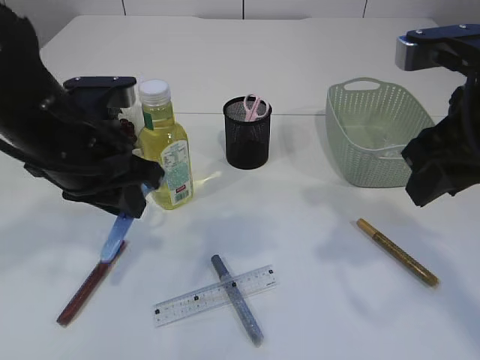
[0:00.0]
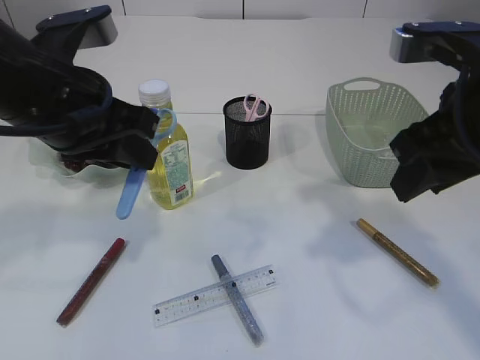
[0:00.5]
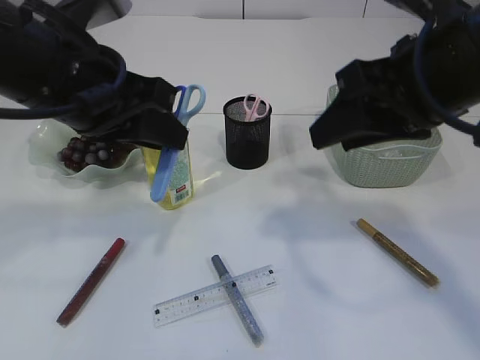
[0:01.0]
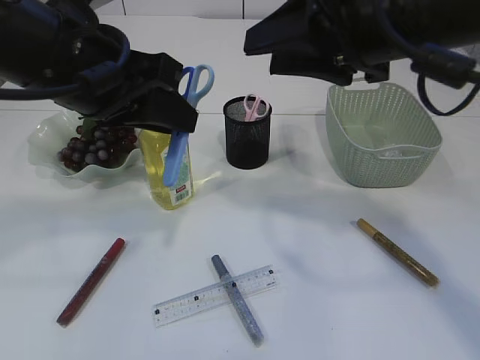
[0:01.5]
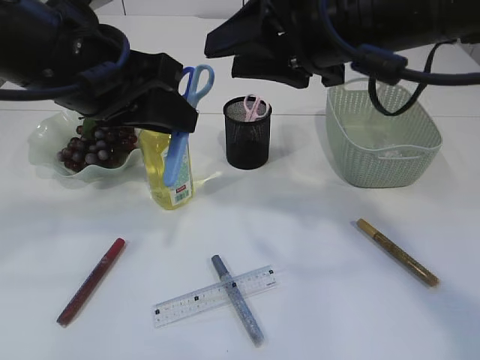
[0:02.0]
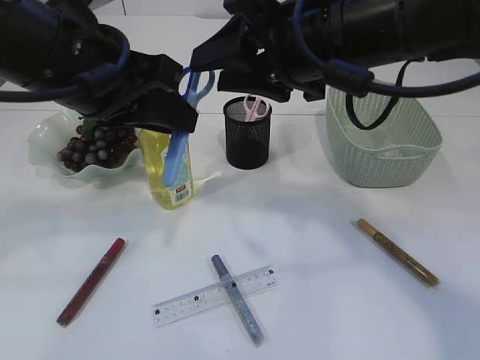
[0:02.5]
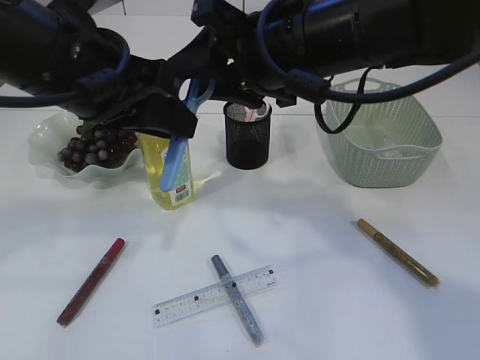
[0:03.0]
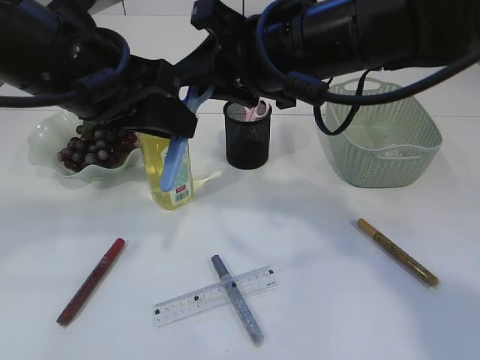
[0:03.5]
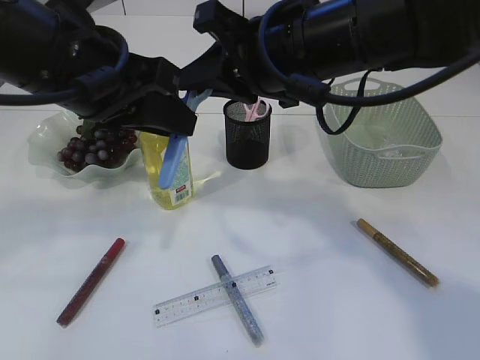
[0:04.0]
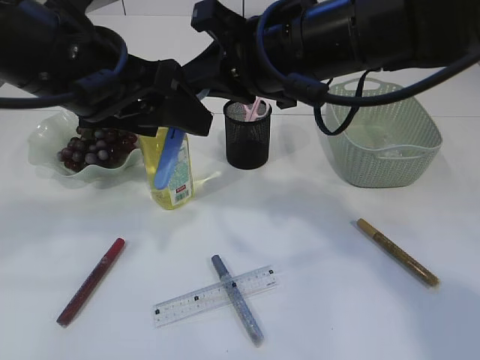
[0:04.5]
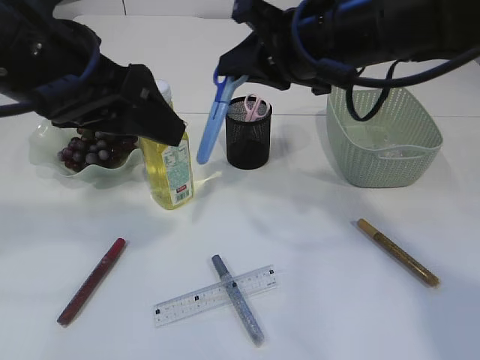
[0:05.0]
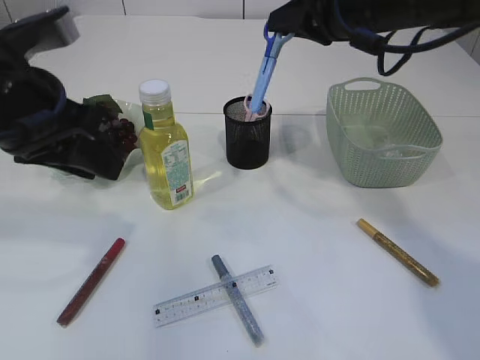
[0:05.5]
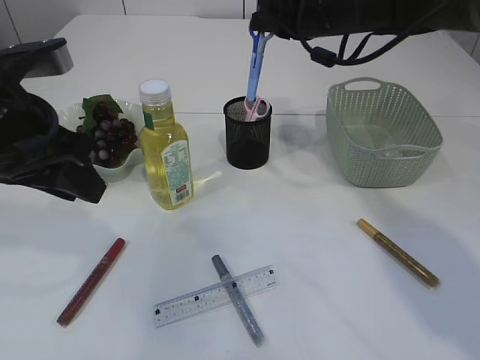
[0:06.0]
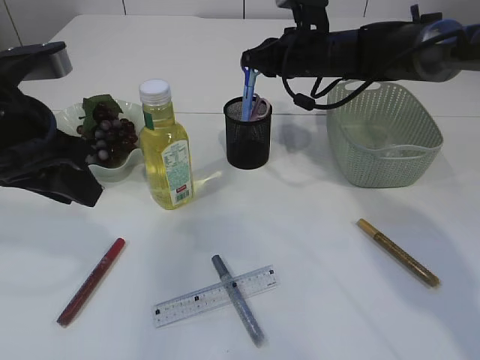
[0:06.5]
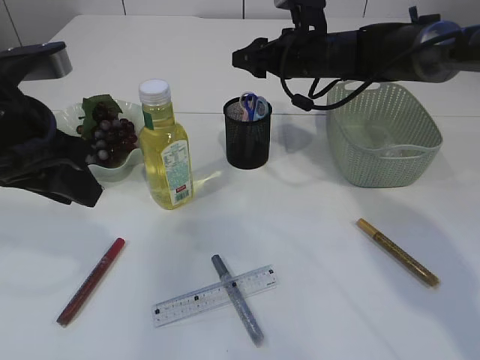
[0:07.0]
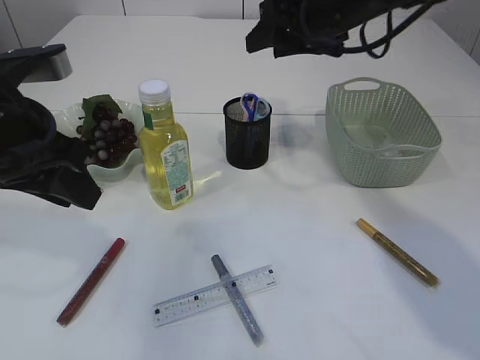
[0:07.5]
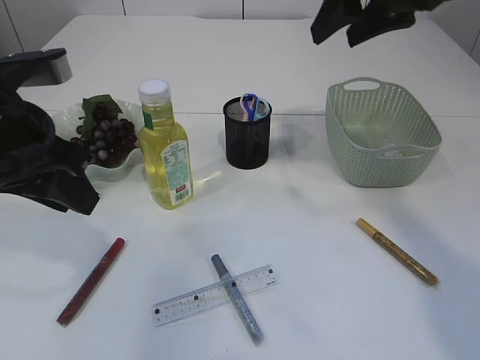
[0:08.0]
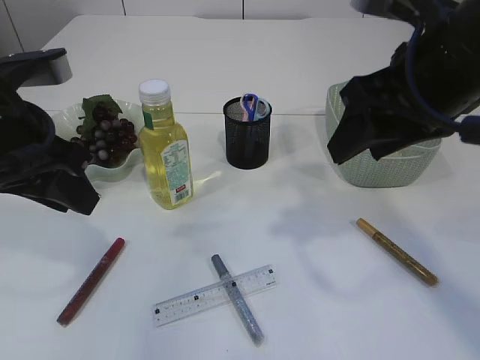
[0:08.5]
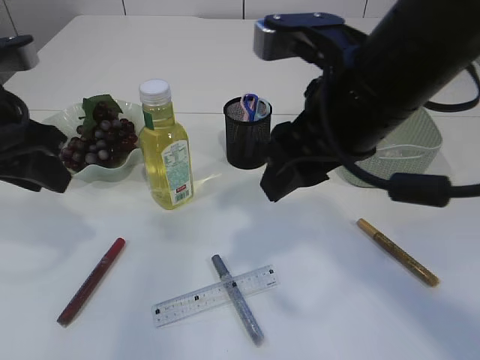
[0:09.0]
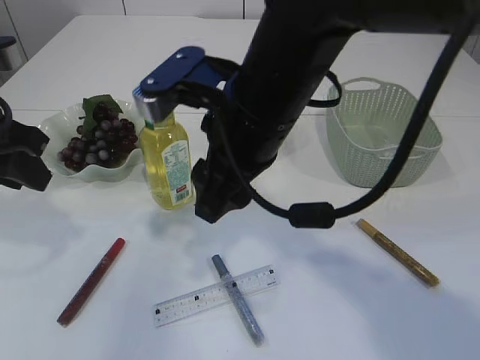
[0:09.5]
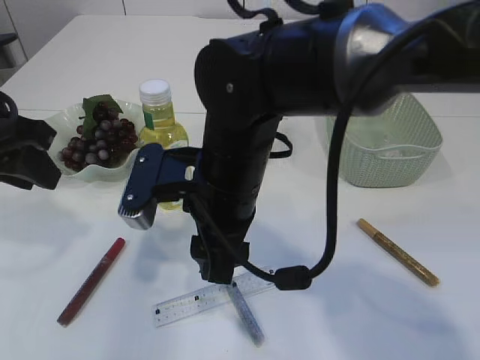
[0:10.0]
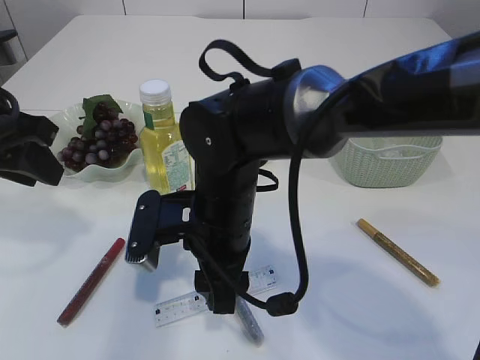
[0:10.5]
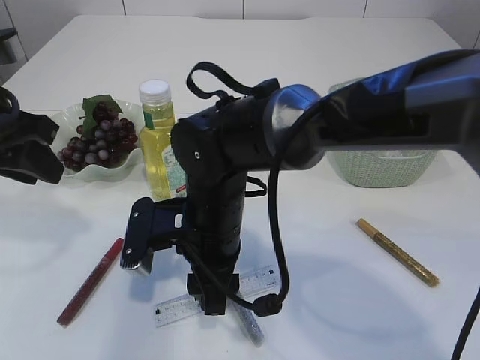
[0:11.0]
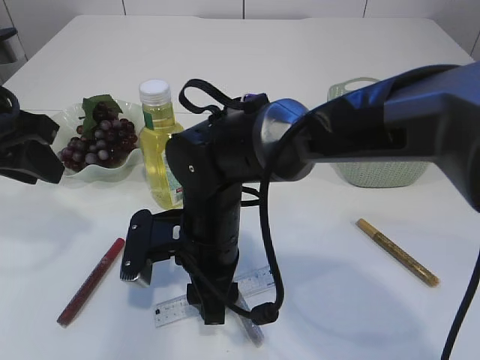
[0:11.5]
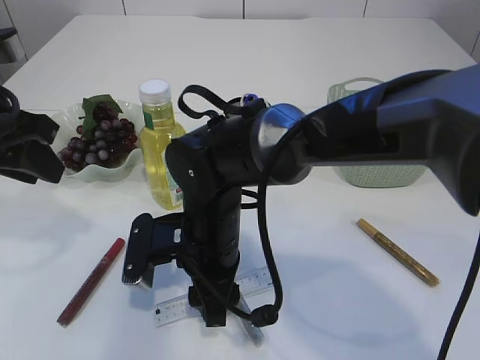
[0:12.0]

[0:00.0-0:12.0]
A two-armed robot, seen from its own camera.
Step, 0:00.0 to 0:05.0: Hand over the blue scissors.
Step, 0:05.5 to 0:07.5: Place the blue scissors into the pen holder.
0:00.0 to 0:02.0: The left gripper shifts about 10 cm upward. The right gripper moves to the left and forward, about 10 cm.
0:02.0 to 0:04.0: The right gripper changes place by some 5 cm, and closes up.
0:04.0 to 0:06.0: The left gripper shifts about 5 cm to the left, and opens, then closes once more. The right gripper is displaced forward and to the right by roughly 15 cm.
0:06.0 to 0:08.0: The right gripper is displaced backward and upward by approximately 15 cm, and opens its fingers.
0:08.0 to 0:10.0: The right gripper shifts approximately 25 cm to the left, downward and backward.
0:10.0 to 0:12.0: The right gripper heads downward, covering some 10 cm.

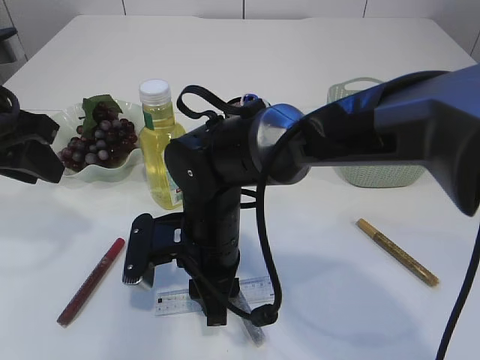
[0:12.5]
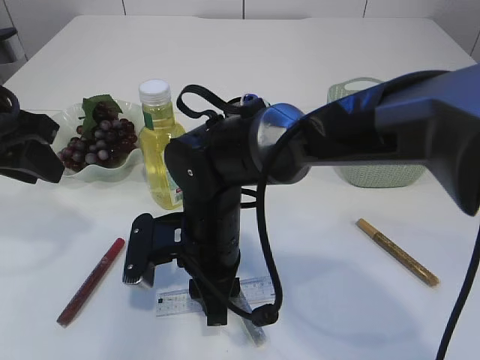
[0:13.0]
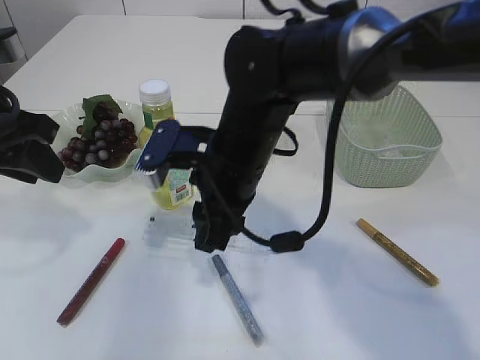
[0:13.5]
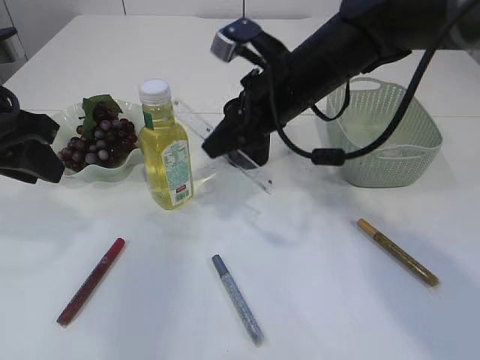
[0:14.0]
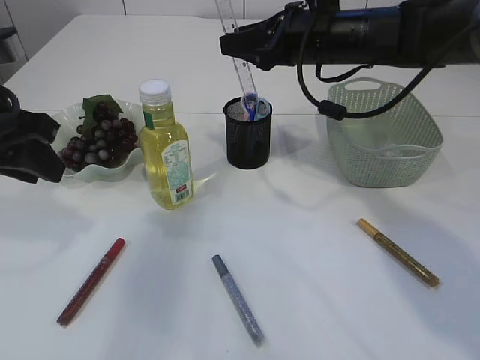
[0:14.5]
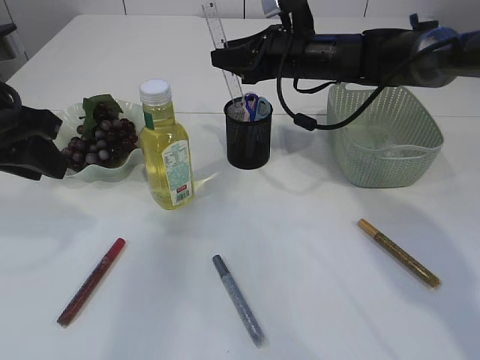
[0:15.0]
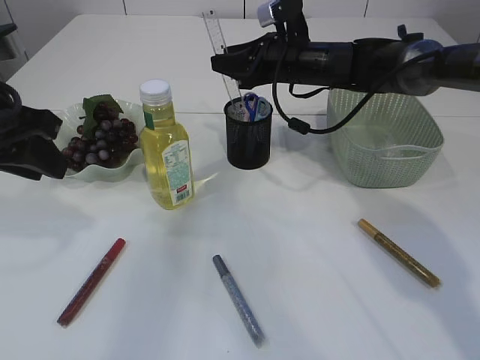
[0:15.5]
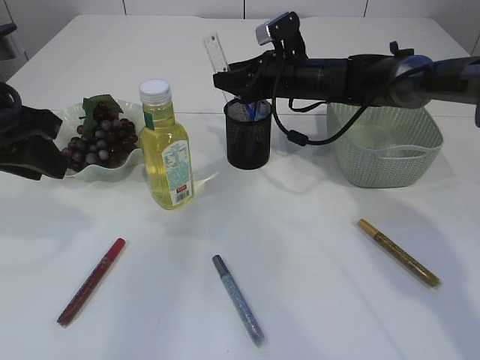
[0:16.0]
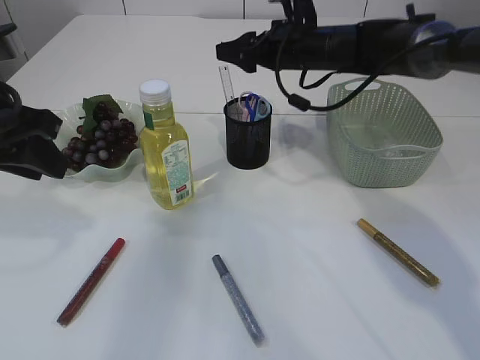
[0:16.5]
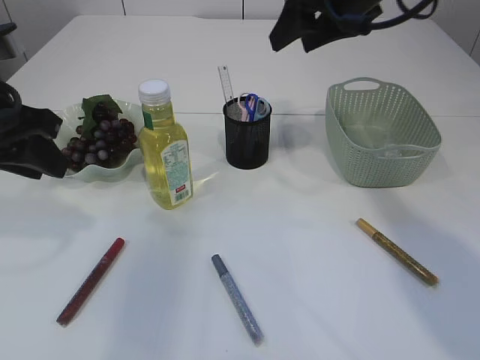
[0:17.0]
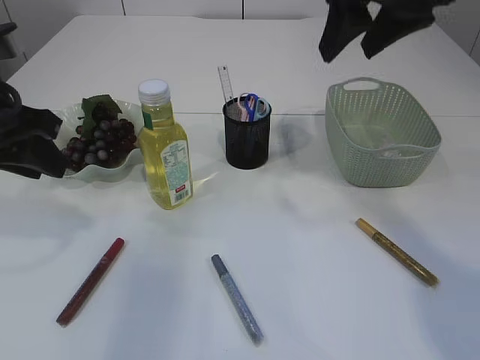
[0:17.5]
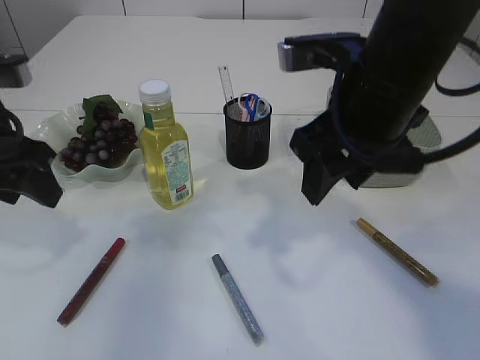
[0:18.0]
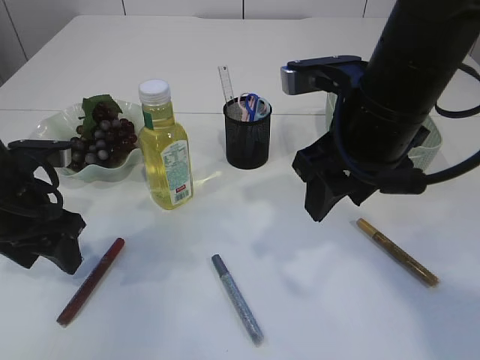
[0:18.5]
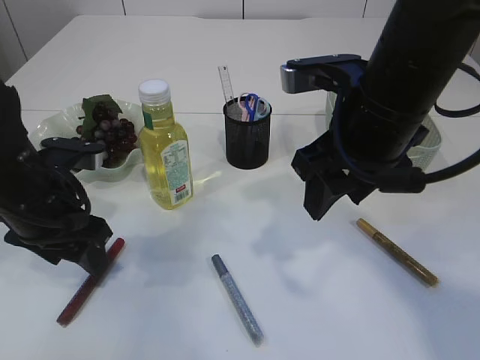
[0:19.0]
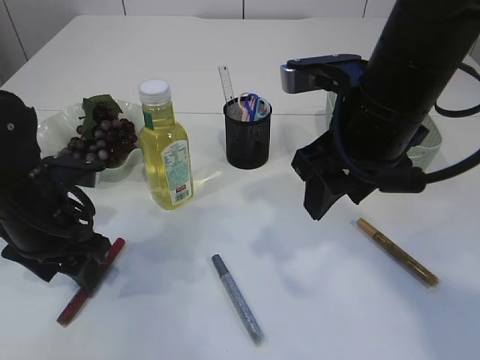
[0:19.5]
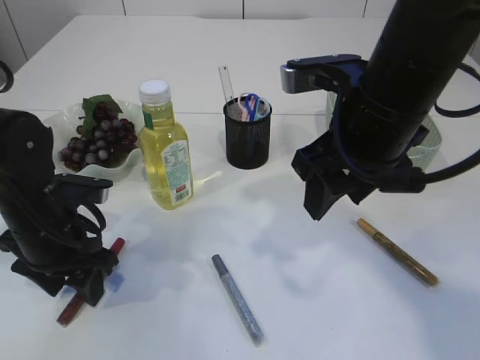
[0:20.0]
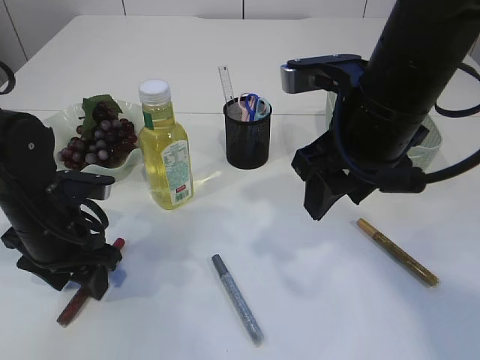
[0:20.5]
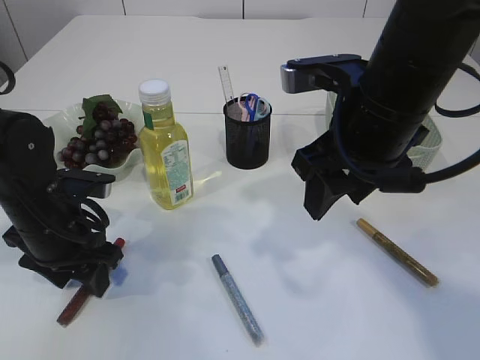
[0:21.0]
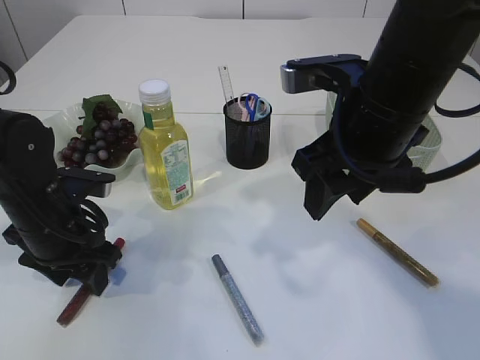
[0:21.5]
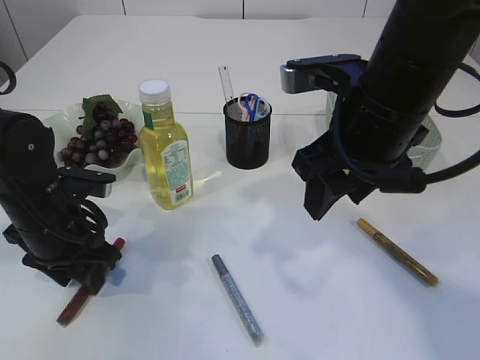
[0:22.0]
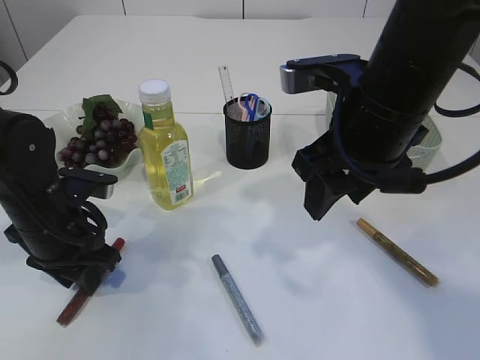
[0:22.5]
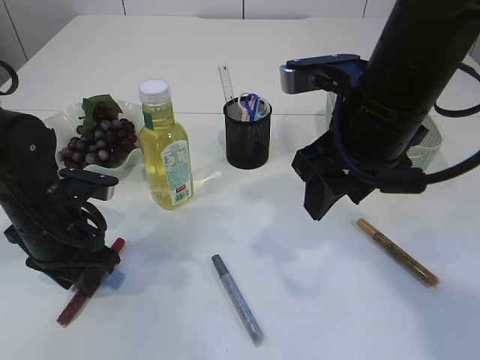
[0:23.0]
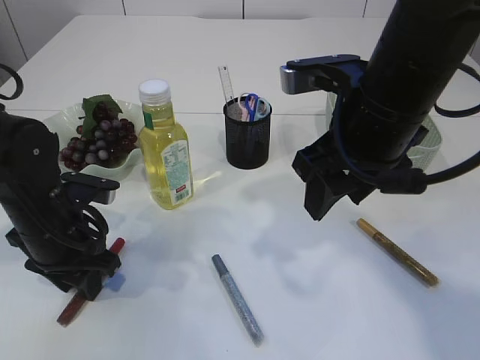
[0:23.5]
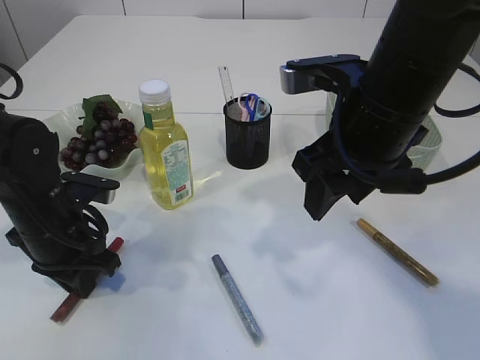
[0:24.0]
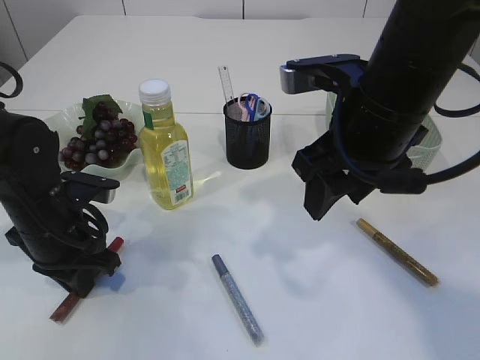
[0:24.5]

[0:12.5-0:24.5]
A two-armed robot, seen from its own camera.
Step, 0:14.0 to 0:16.5: Place the ruler into the pen holder.
0:12.5 to 0:14.5: The right gripper is displaced to the right, forward and upward by approximately 25 cm.
0:14.5 to 0:16.5: The right gripper shifts some 5 cm forward, and opens its fingers.
0:16.5 to 0:18.5: The right gripper heads backward, covering some 25 cm, while the left gripper is displaced downward by roughly 10 cm, and opens its fingers.
0:18.5 to 0:20.5: The left gripper goes approximately 5 cm downward.
0:20.5 to 0:22.5: Neither gripper changes place.
0:22.5 to 0:24.5: The left gripper closes up.

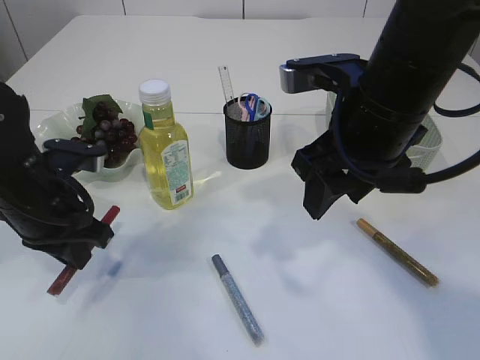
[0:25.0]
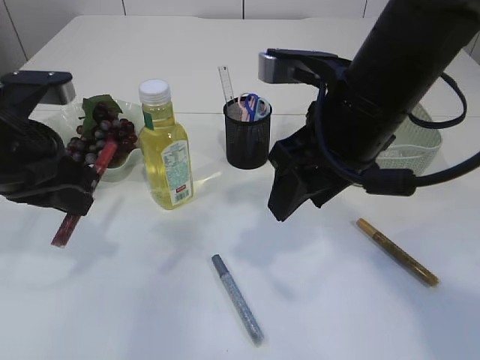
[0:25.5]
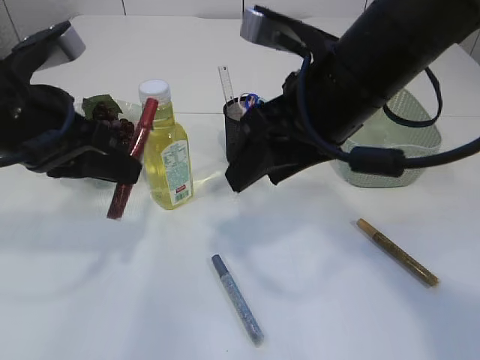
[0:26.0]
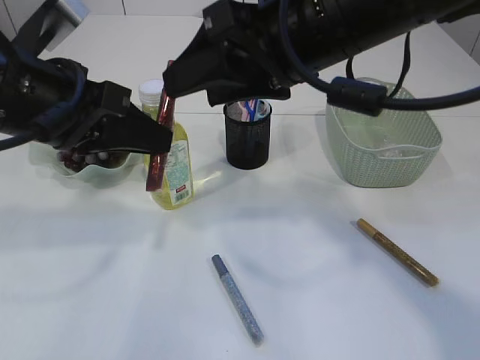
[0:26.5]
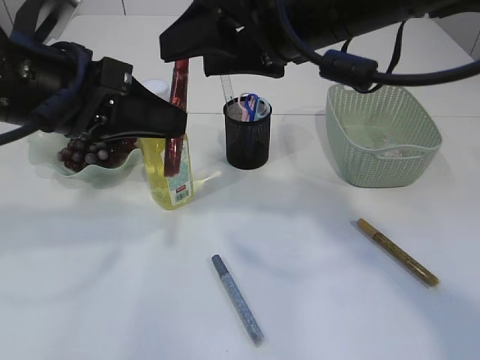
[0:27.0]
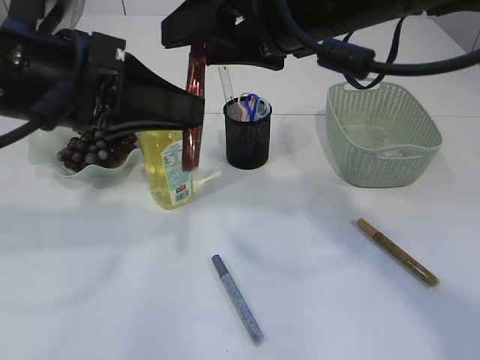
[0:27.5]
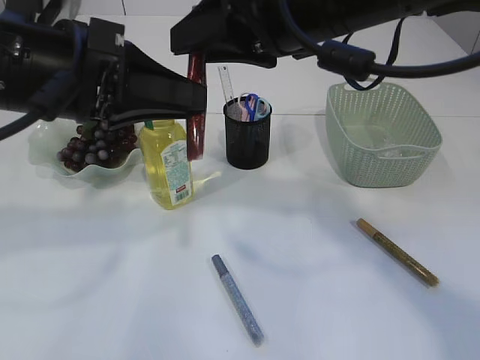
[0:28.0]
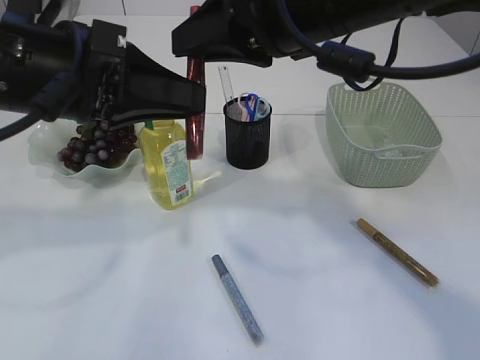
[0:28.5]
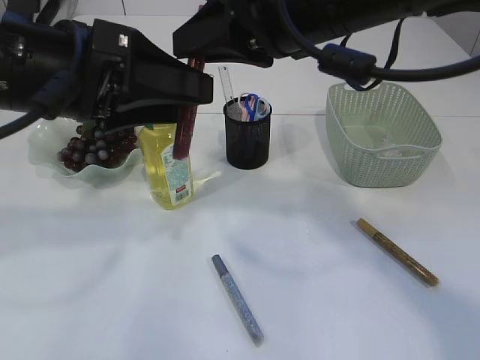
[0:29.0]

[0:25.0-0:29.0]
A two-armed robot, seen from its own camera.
0:25.0 to 0:27.0: The left gripper travels upward by approximately 15 cm. The right gripper goes some 5 cm upward.
0:27.0 to 0:29.0: The left gripper opens its fingers. The right gripper closes.
